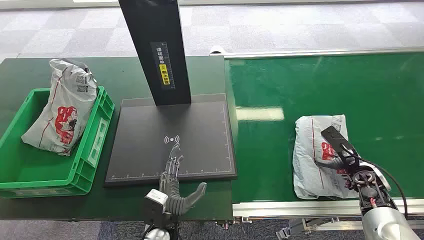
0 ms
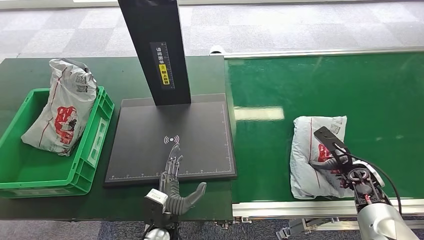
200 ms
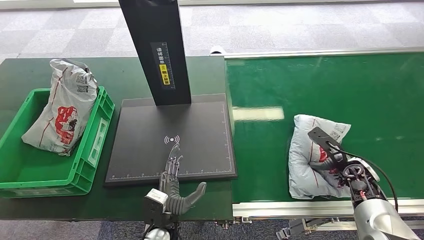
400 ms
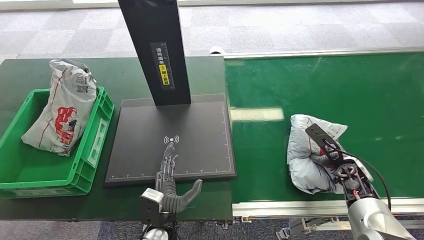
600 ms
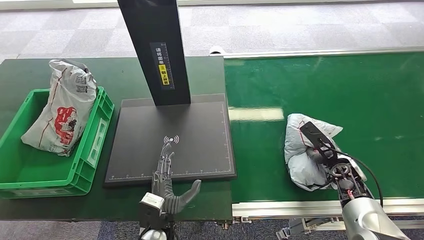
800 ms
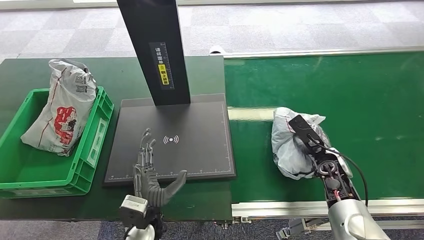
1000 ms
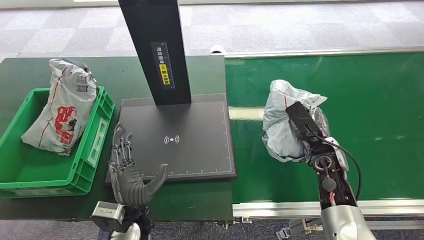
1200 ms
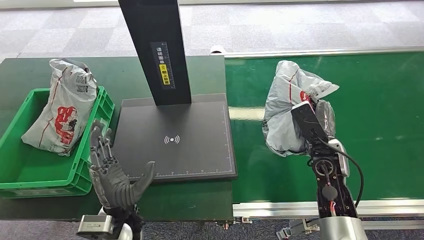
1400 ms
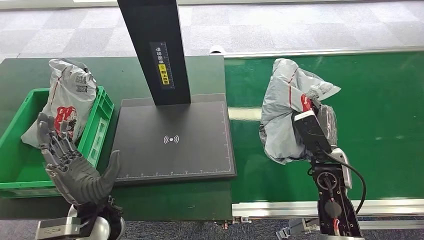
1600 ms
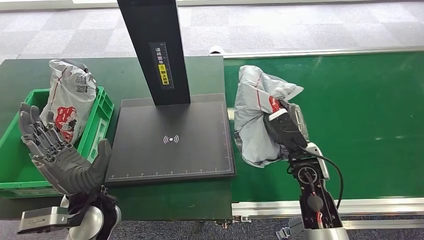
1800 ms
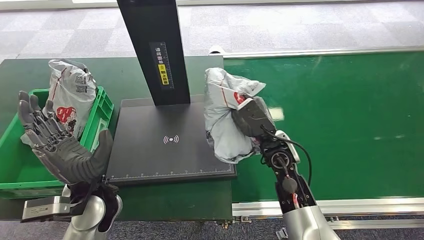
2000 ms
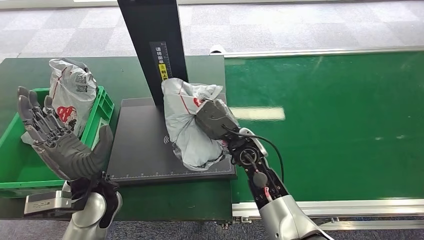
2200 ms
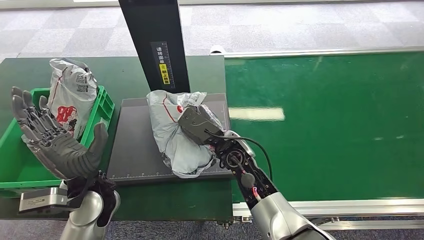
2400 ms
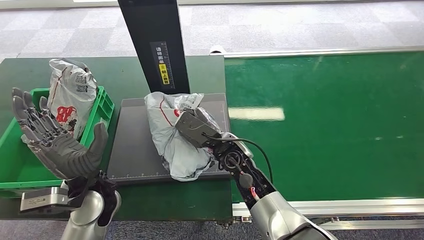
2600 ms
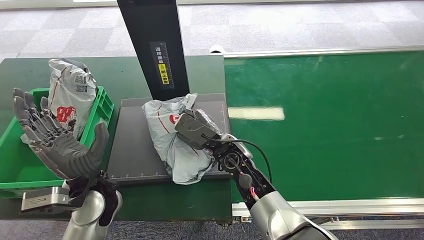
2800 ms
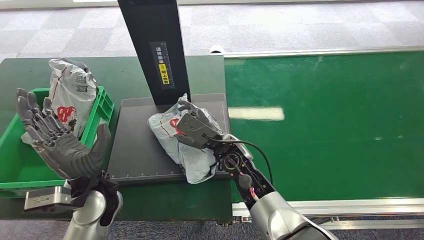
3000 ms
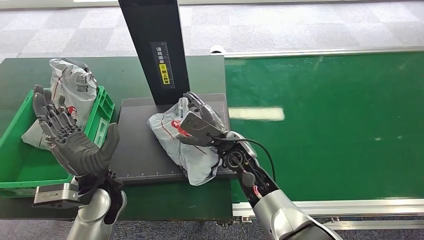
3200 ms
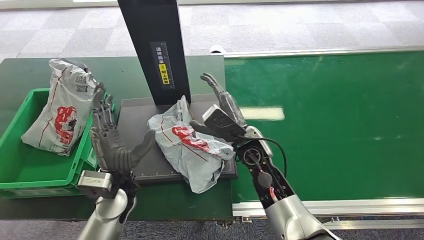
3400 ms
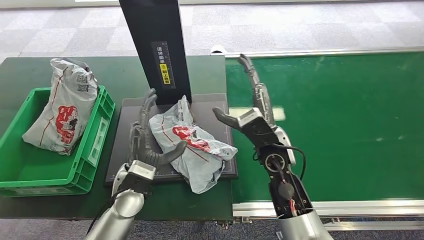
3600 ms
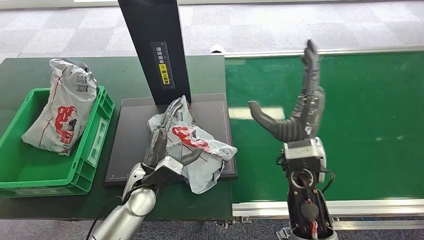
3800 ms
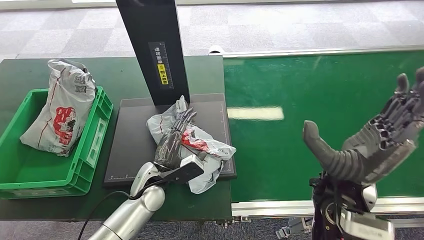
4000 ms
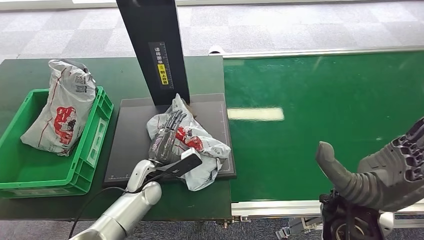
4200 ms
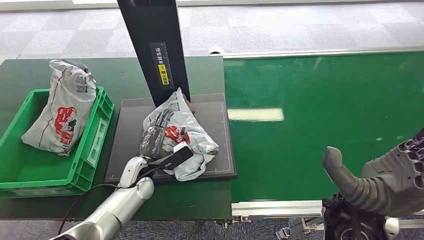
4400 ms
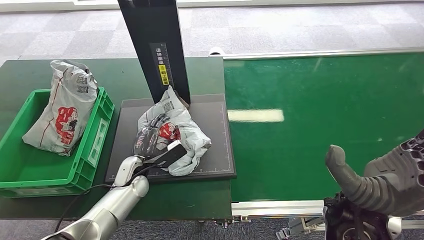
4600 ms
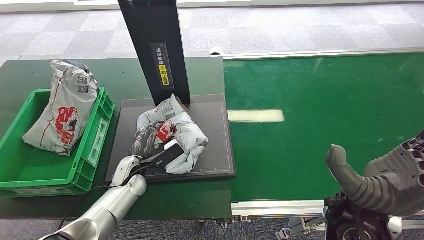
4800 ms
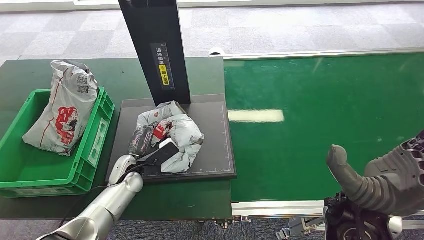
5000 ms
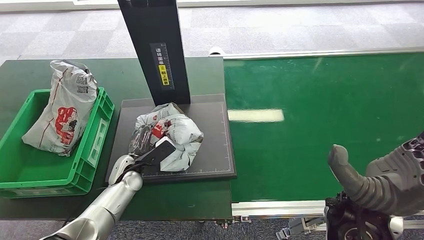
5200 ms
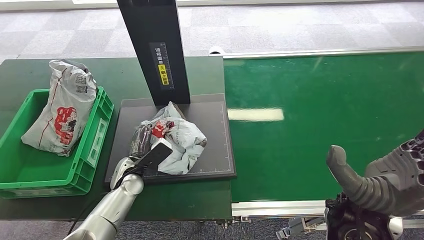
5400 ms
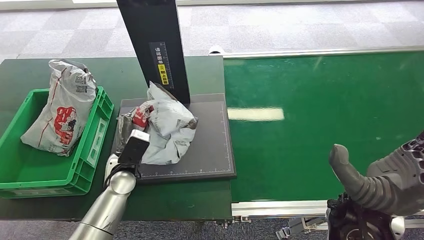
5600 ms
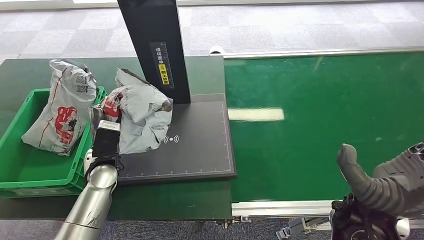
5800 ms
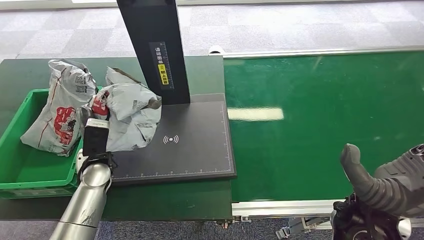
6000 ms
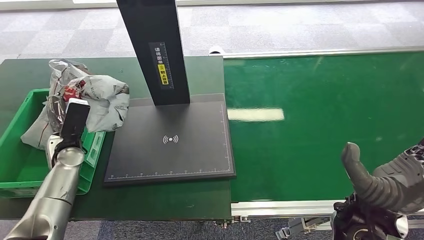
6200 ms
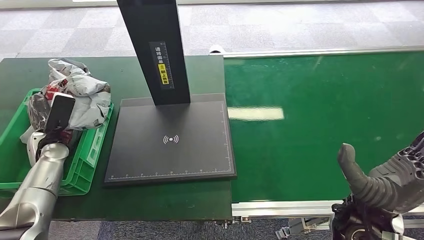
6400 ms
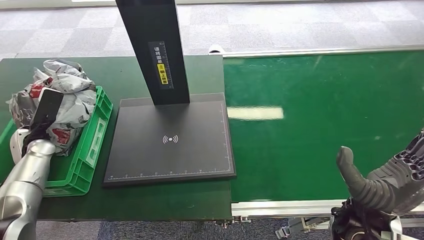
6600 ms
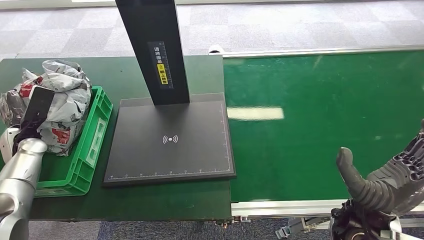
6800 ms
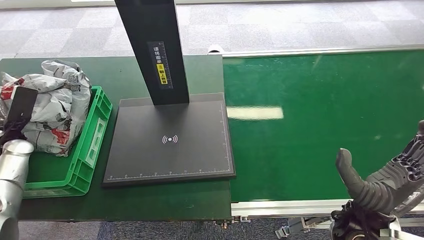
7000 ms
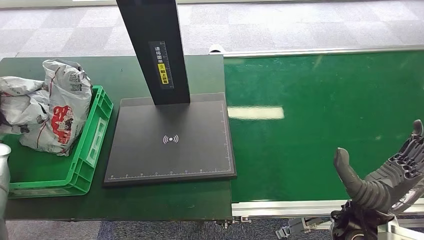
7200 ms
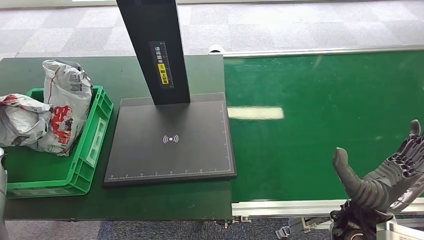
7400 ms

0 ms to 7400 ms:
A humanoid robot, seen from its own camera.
Step, 0 ms to 2000 ms: Pick up the package from the conveyor belt.
Step, 2200 ms to 3800 ms: Place the package onto the inbound machine.
Step, 4000 ms to 7400 ms: Pick up the package from the inbound machine.
4400 ms to 6000 ms: The left hand shifts roughly 10 cm to the left and upward.
6000 ms to 7400 ms: The right hand is displaced downward by roughly 5 cm; the left hand shifts roughly 25 cm to the left.
